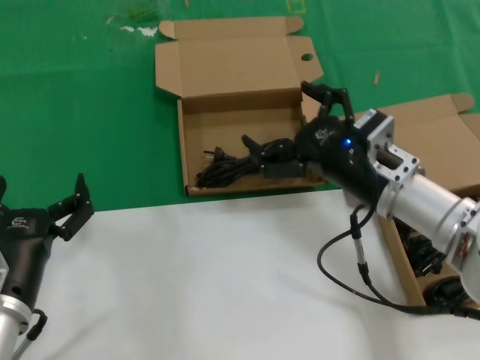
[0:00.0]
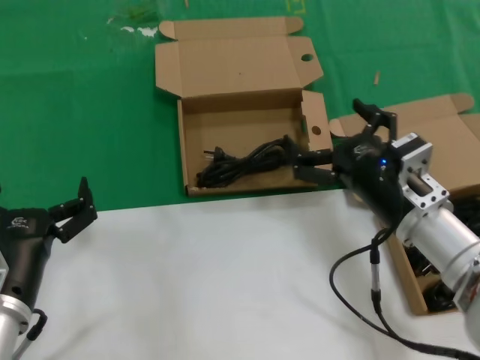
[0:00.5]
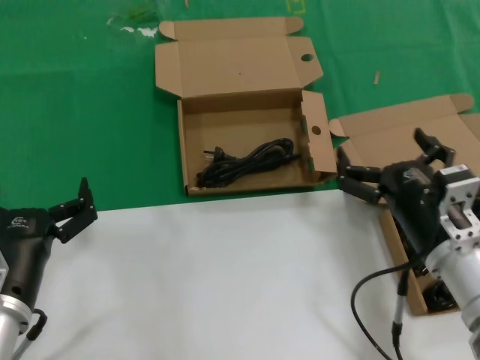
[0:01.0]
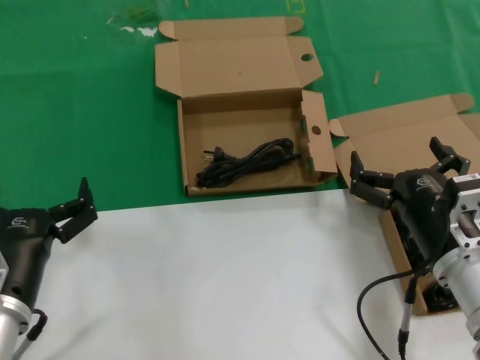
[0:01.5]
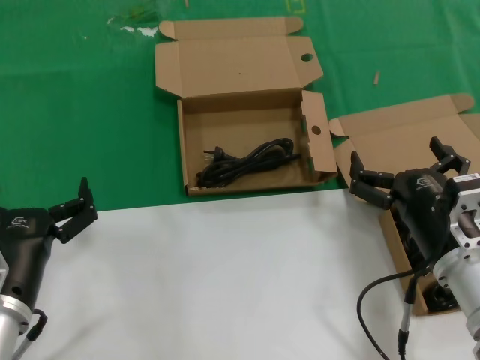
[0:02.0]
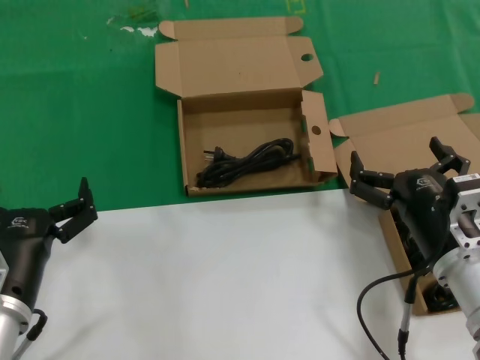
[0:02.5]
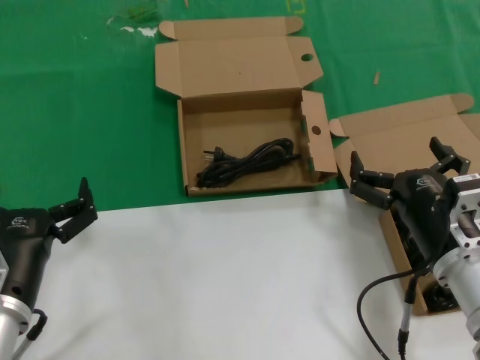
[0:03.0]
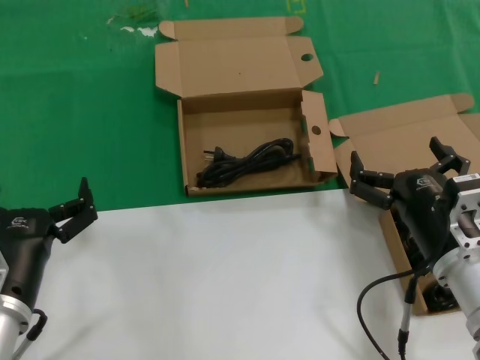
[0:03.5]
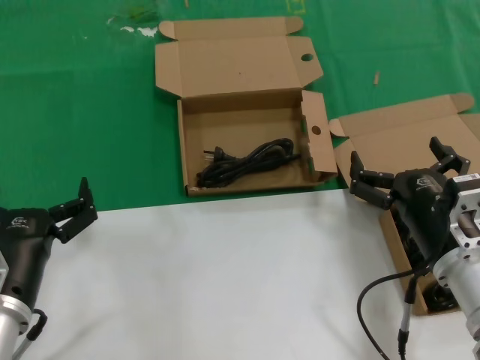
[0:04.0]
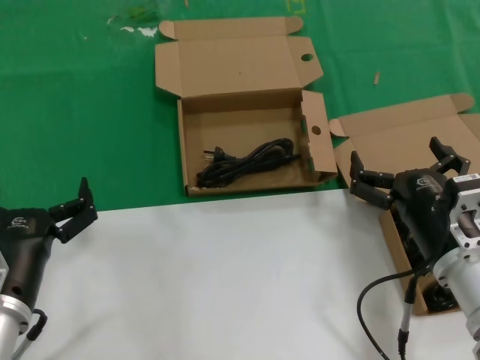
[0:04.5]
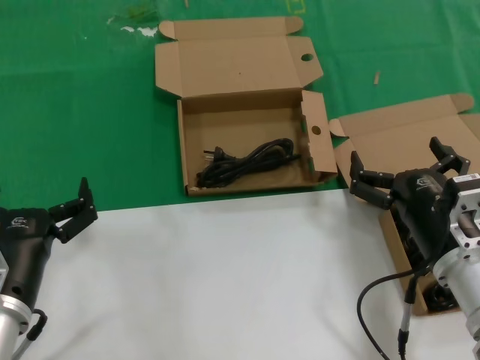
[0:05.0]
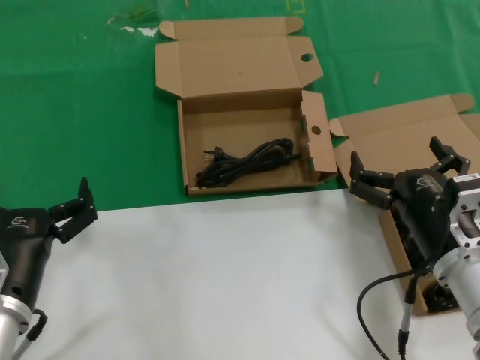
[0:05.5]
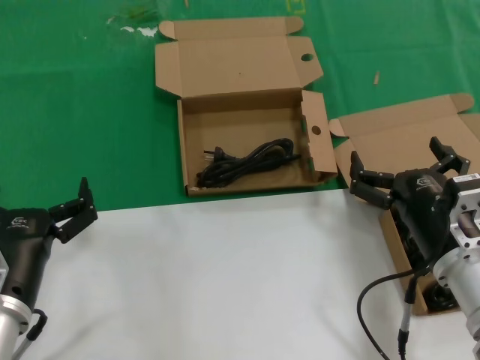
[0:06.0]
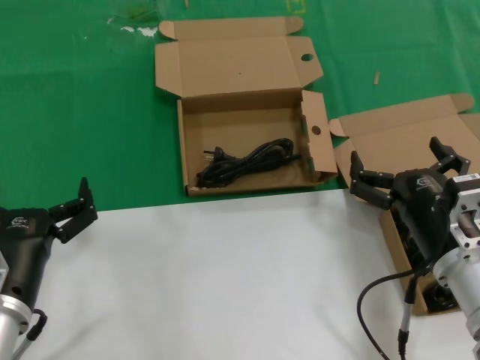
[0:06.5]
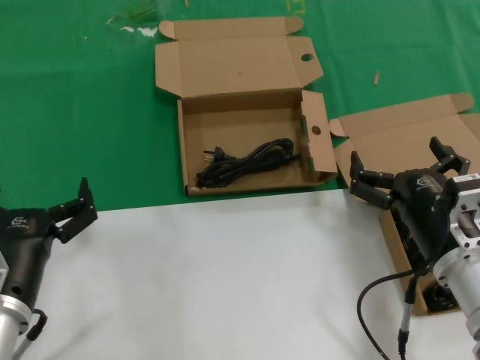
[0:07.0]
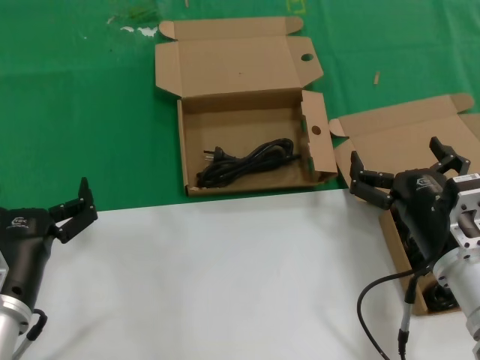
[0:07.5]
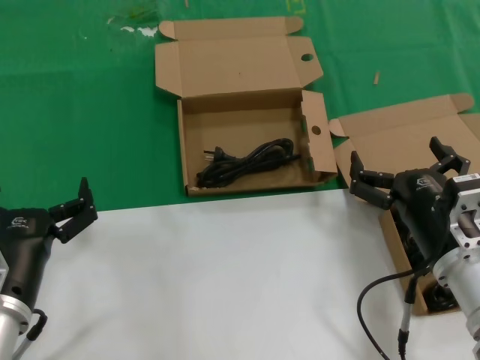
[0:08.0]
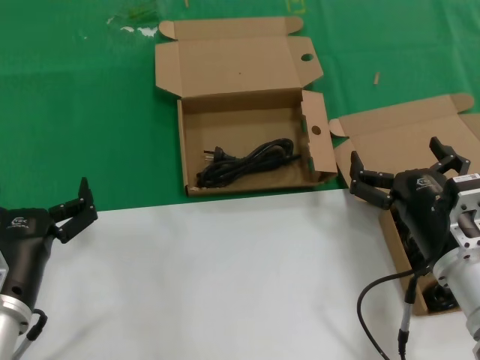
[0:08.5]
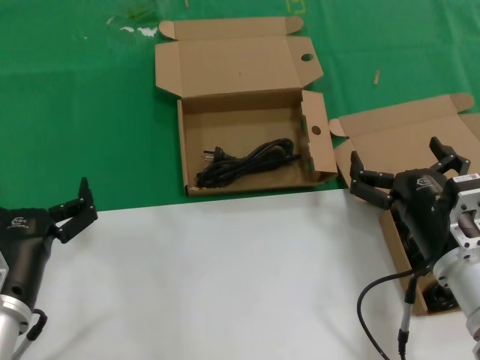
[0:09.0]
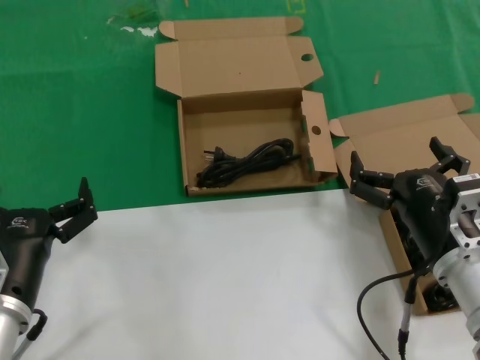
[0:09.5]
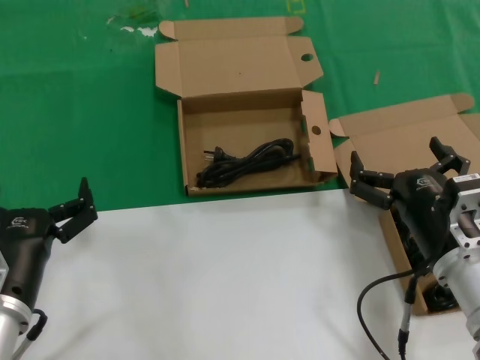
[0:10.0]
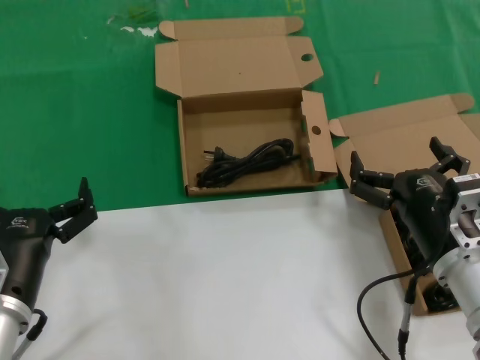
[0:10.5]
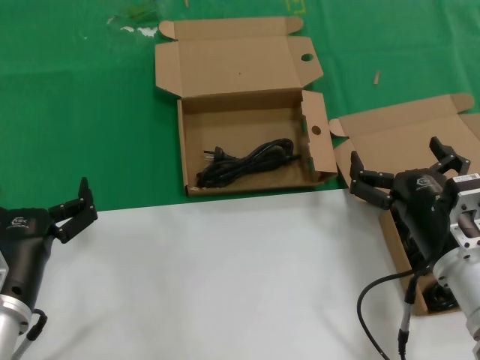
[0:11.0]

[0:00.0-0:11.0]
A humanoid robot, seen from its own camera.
Task of the whole recording: take the parts from the box containing them and put them into an empty box.
0:00.0 to 0:02.0: The right hand heads backward and downward, covering some 10 cm.
0:02.0 to 0:11.0: Neither hand changes place.
